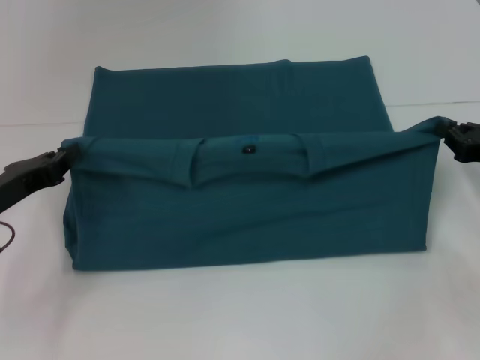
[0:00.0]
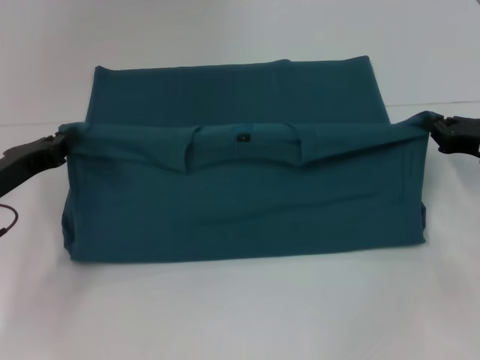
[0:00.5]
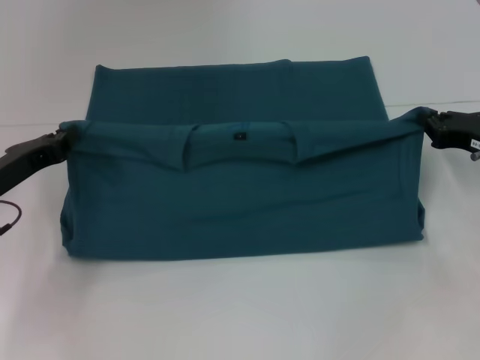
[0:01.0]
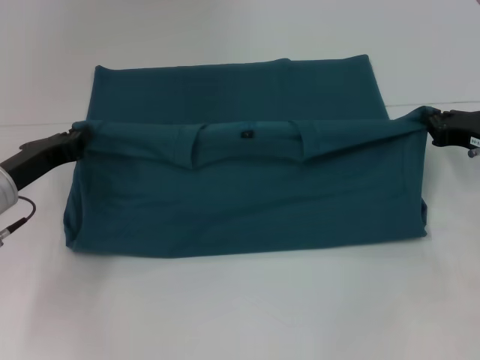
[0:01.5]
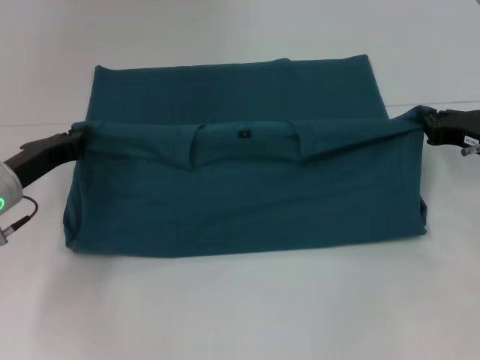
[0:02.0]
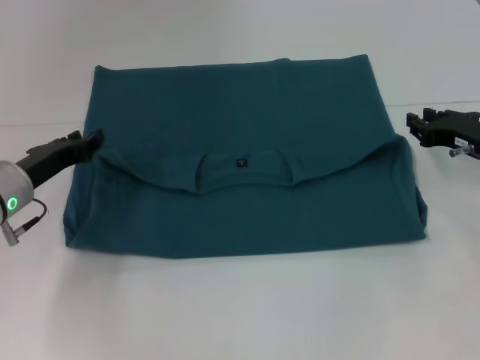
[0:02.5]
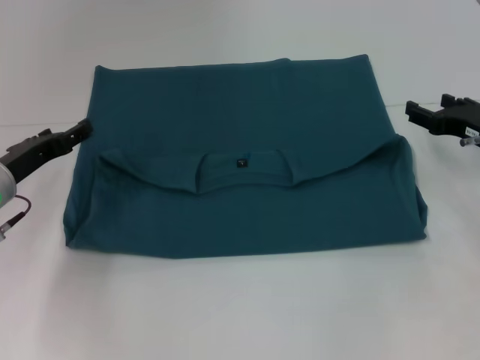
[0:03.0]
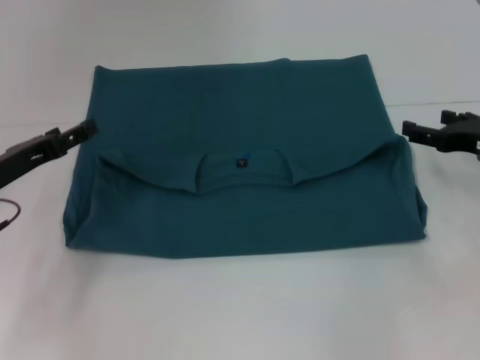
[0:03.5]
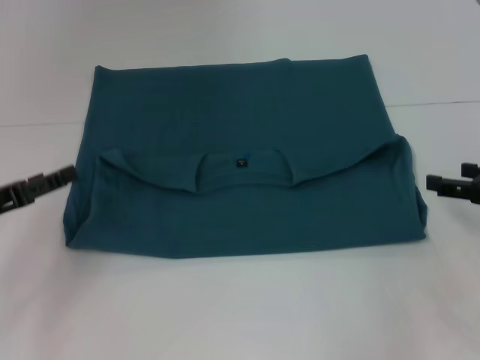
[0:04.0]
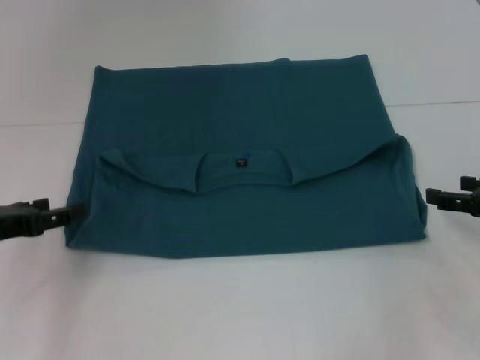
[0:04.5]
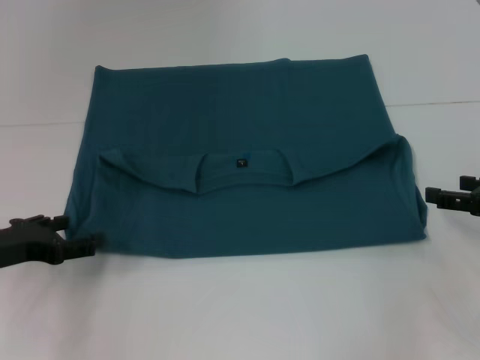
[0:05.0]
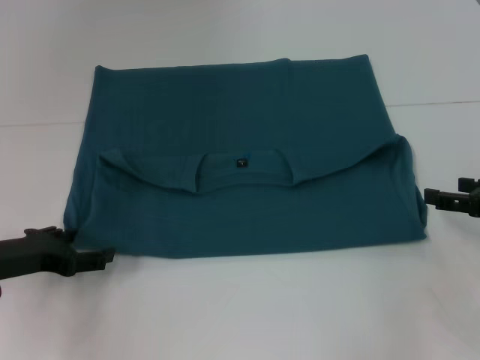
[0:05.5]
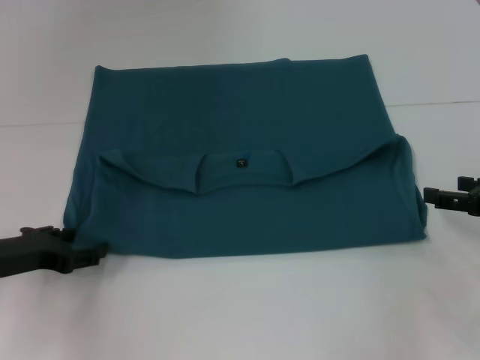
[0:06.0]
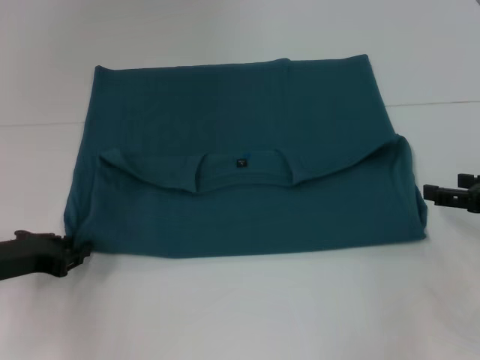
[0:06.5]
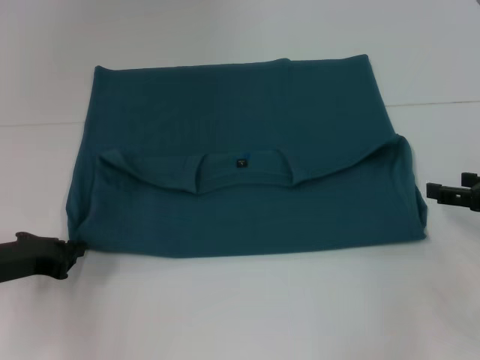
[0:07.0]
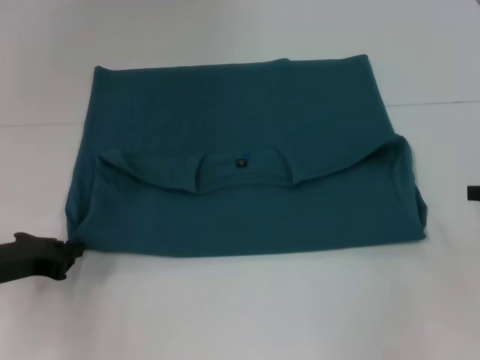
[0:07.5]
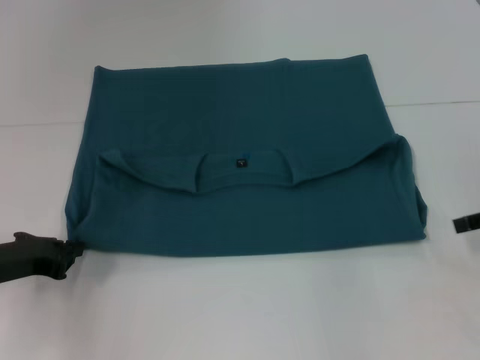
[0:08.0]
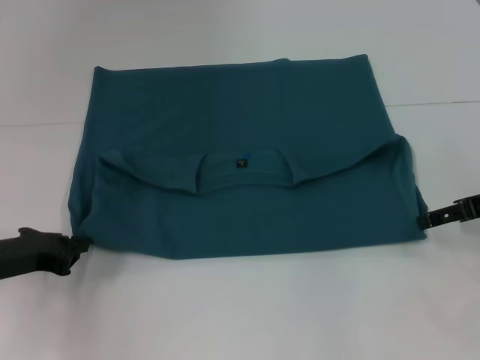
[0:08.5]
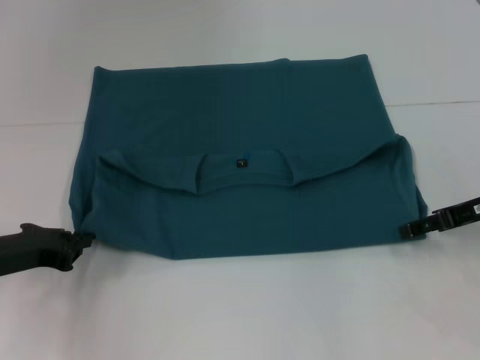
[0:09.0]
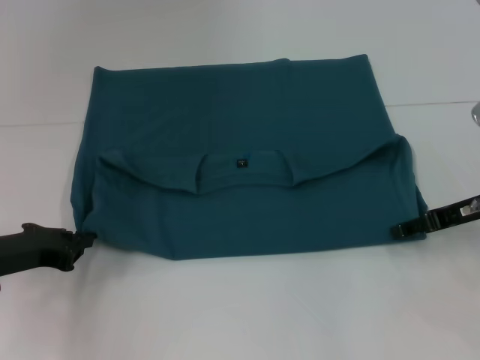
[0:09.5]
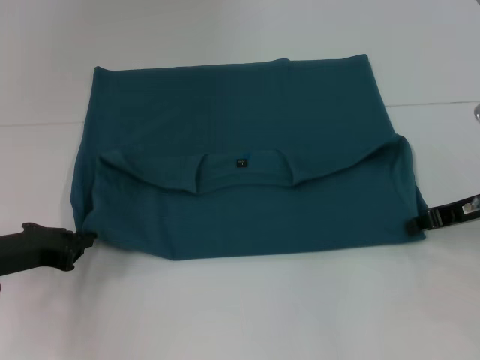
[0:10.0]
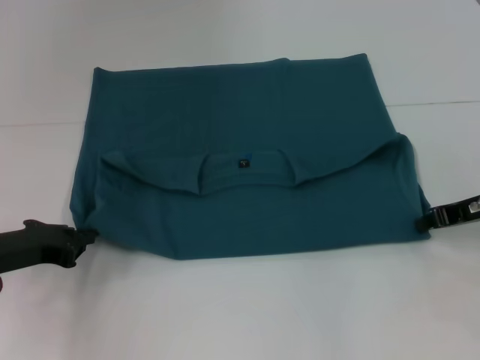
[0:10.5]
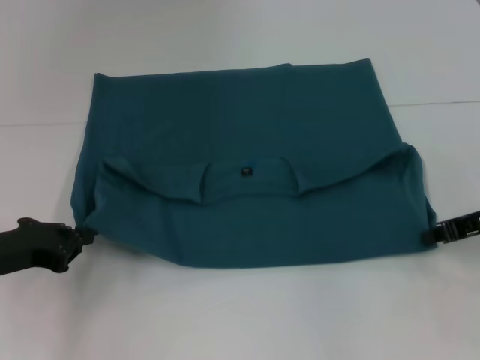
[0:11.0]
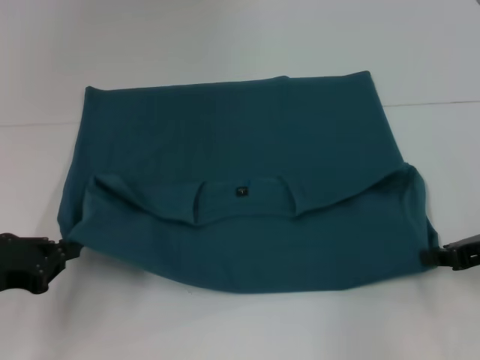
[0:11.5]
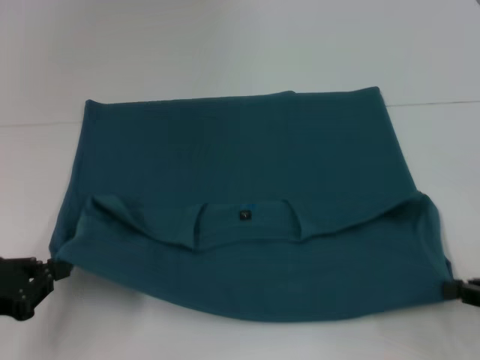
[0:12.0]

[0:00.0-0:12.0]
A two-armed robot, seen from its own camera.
Step, 0:00.0 to 0:03.5: Fold the clothes to the left.
Step, 0:00.0 to 0:03.5: Fold the clothes to the right.
0:00.0 to 0:02.0: The left gripper moves roughly 5 cm, while the right gripper moves about 5 cm.
0:02.0 to 0:04.0: The right gripper shifts roughly 5 cm backward, and opens, while the left gripper heads backward and to the left, covering approximately 10 cm, and opens.
0:04.0 to 0:06.0: The left gripper moves approximately 5 cm.
0:06.0 to 0:08.0: The left gripper closes; the right gripper ends up roughly 5 cm from where it was.
0:08.0 to 0:10.0: The right gripper moves to the left, about 5 cm, and closes up.
0:10.0 to 0:12.0: The left gripper moves backward, approximately 10 cm. The right gripper moves backward, approximately 15 cm, and closes up.

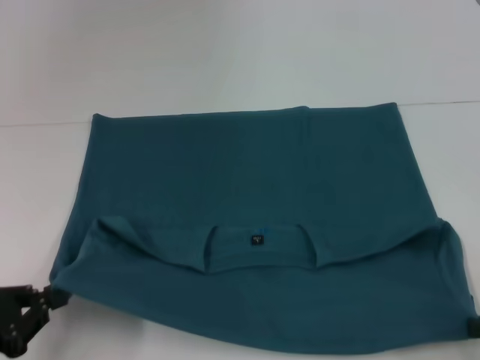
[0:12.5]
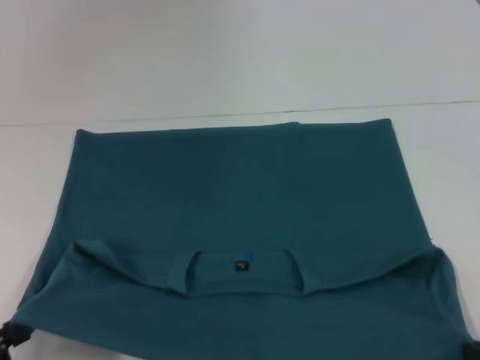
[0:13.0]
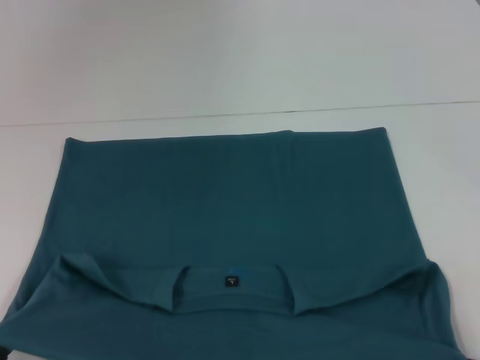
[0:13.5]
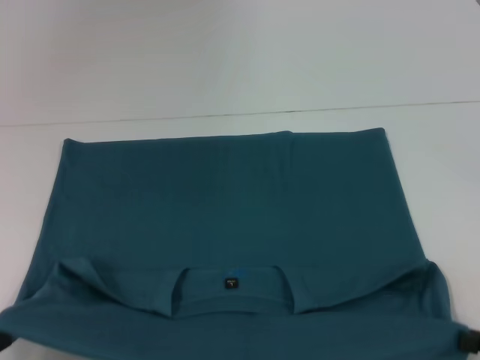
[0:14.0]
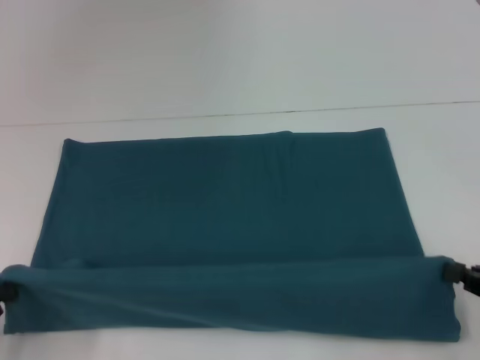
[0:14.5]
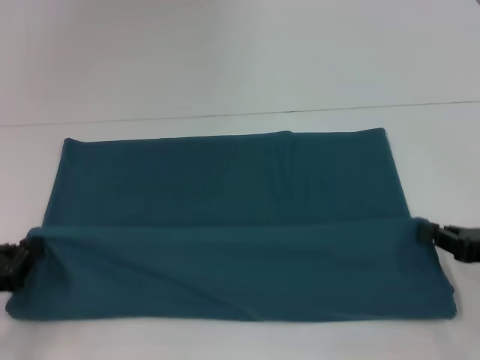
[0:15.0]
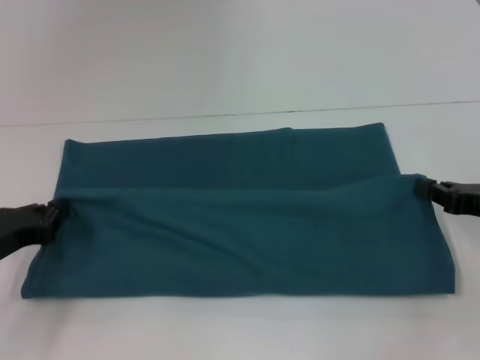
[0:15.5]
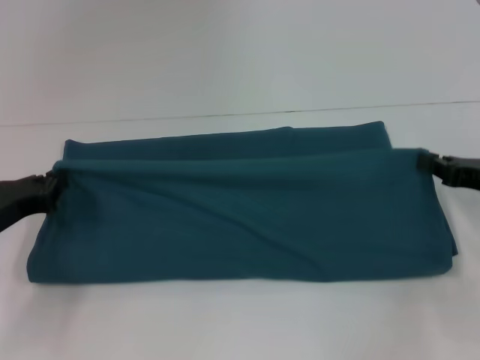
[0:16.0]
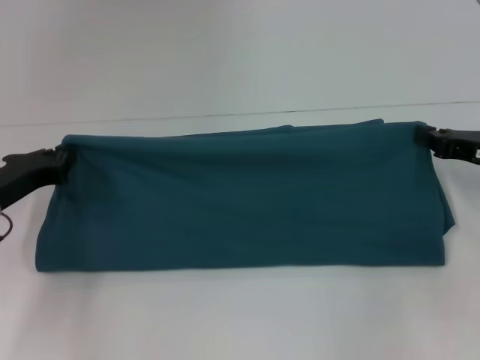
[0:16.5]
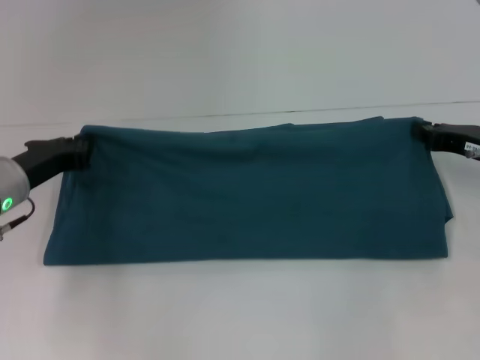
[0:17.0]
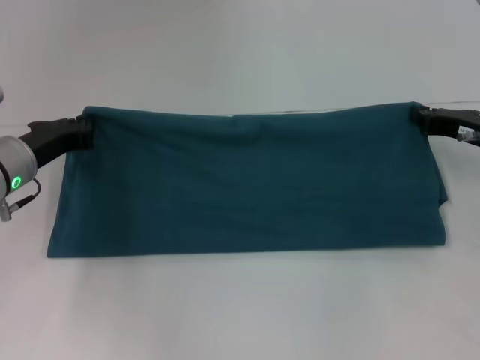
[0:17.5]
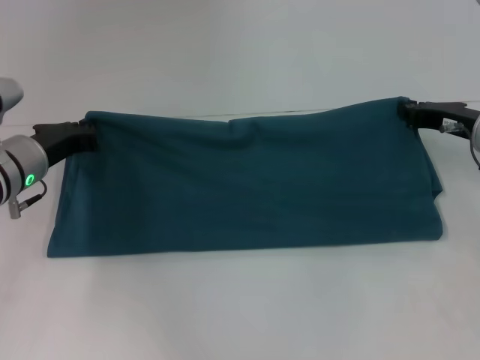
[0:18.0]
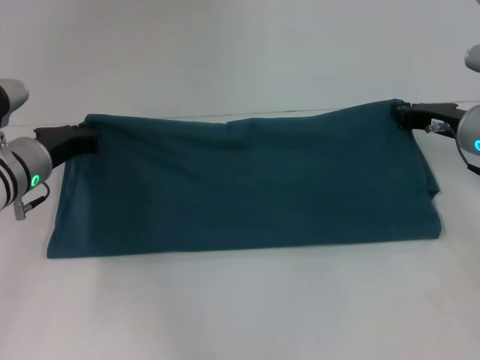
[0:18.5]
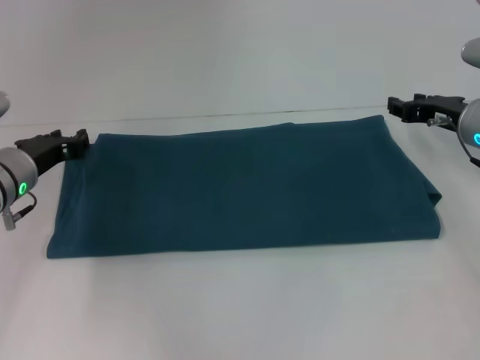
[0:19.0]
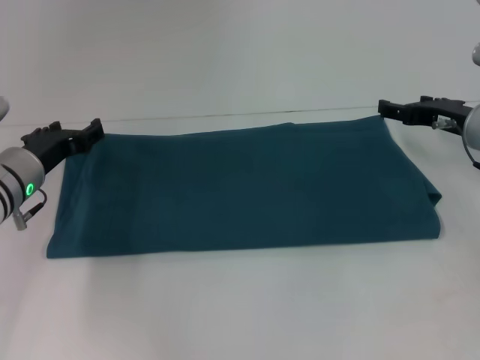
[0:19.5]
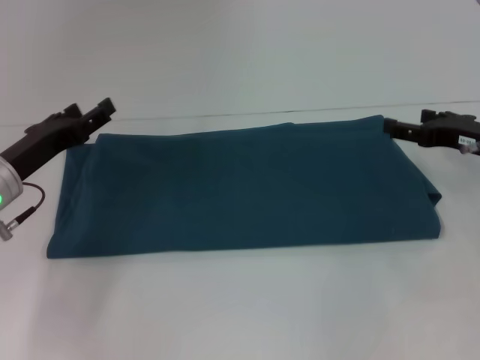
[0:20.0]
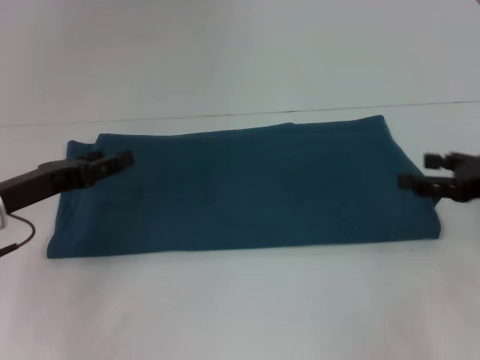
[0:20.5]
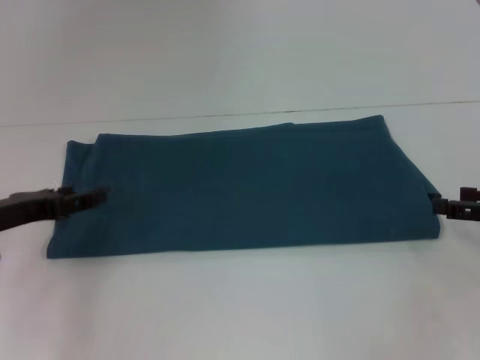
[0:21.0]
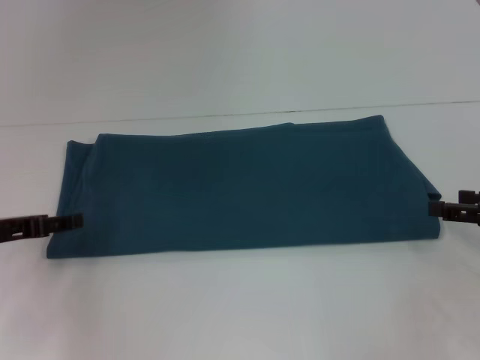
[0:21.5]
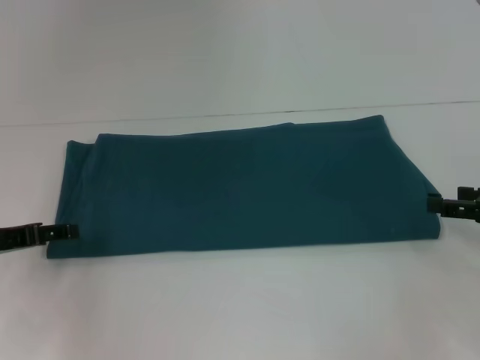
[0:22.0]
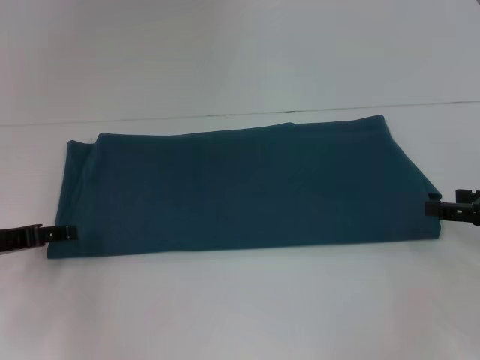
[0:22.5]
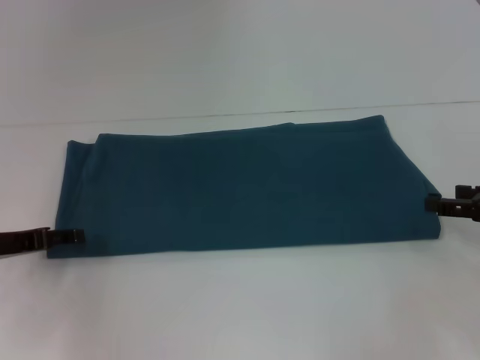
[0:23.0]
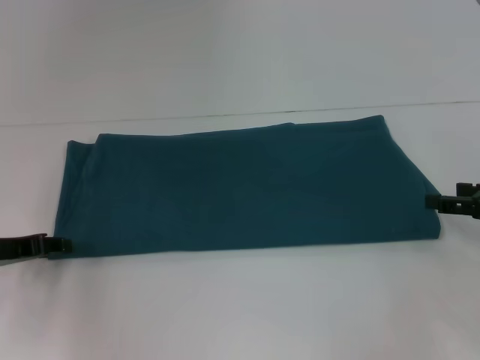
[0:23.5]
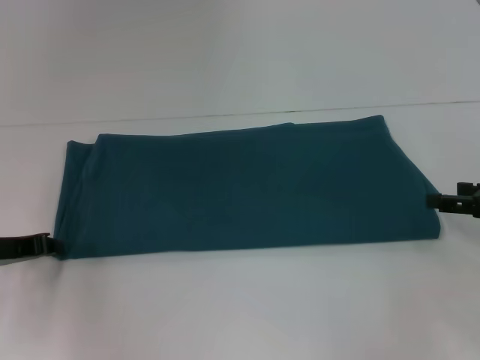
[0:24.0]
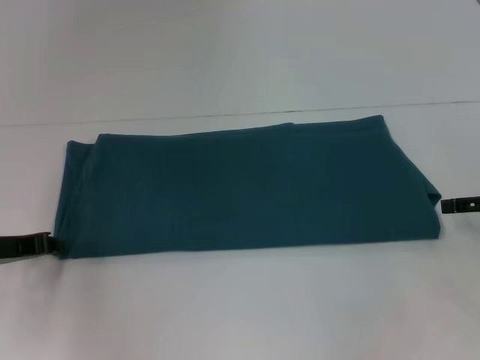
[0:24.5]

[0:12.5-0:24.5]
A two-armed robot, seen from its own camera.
Step, 0:14.0 to 0:19.0: Fold the clothes to the right.
0:12.5 to 0:14.5: The left gripper moves roughly 10 cm backward and comes back.
0:14.5 to 0:16.5: The right gripper shifts some 15 cm forward. Meanwhile the left gripper travels forward and to the right by about 20 cm.
0:16.5 to 0:18.5: The left gripper shifts roughly 10 cm forward and to the right, while the right gripper goes some 5 cm forward.
0:18.5 to 0:20.5: The right gripper shifts approximately 10 cm backward and to the right, and opens up. Meanwhile the left gripper goes approximately 5 cm backward, and opens its fingers.
0:22.5 to 0:24.5: The left gripper closes its fingers.

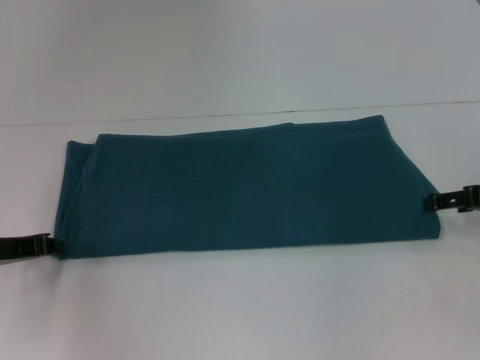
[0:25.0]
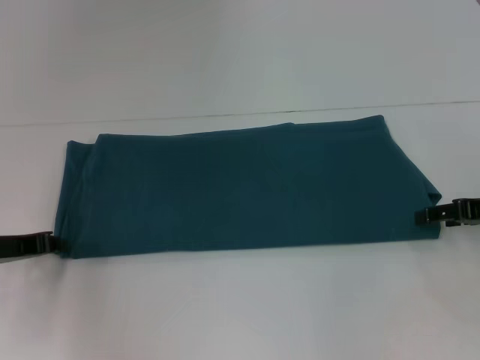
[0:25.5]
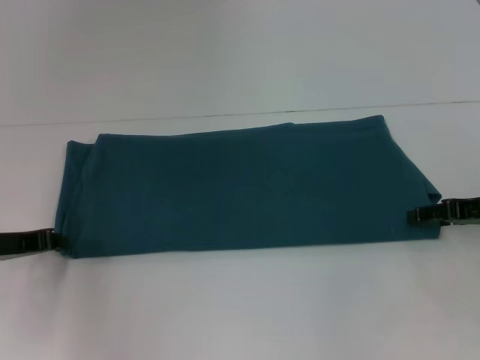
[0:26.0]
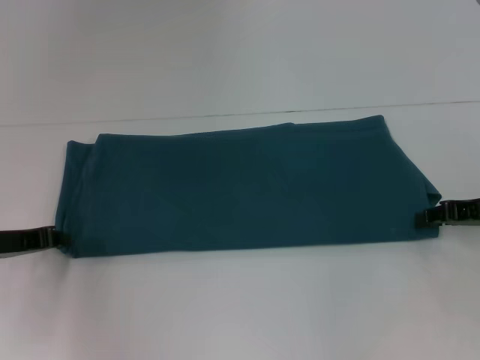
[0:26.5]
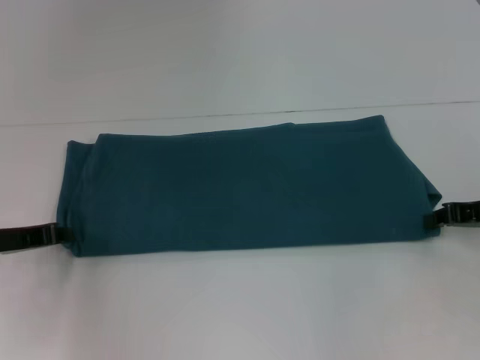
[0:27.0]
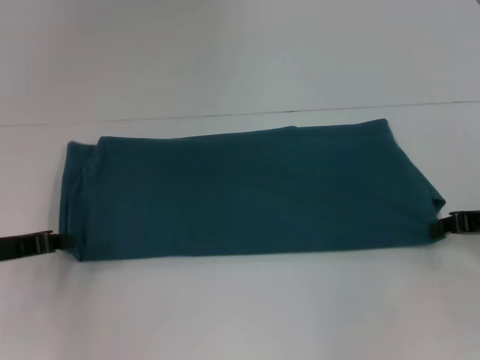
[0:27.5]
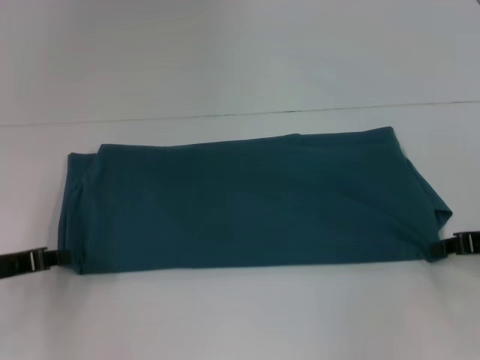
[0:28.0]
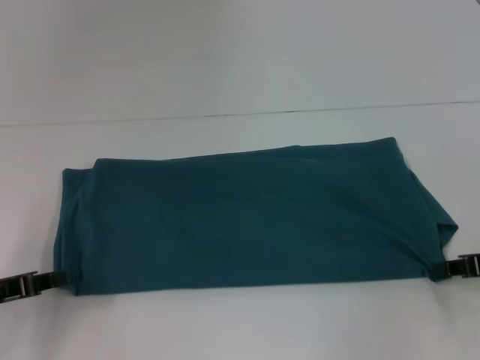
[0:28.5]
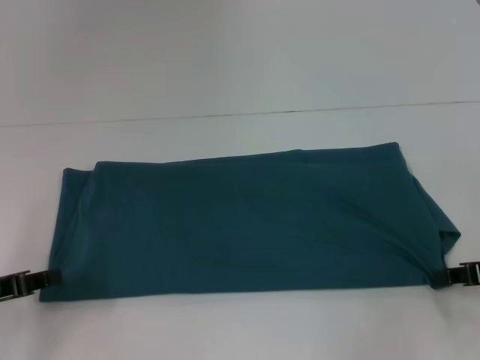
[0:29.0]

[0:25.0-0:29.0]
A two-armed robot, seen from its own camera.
0:25.0 to 0:27.0: The right gripper closes.
0:27.0 to 0:29.0: The two grippers go some 5 cm backward.
